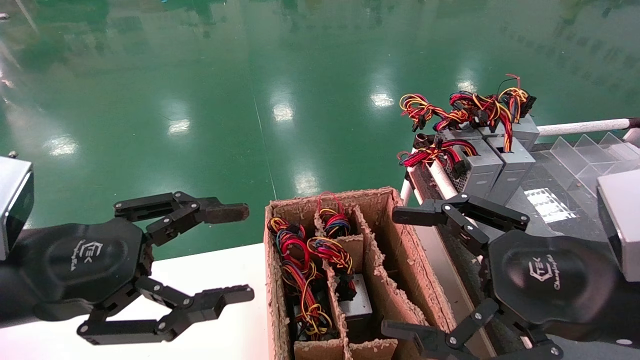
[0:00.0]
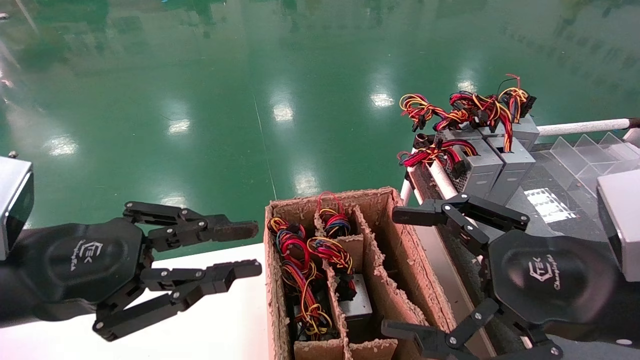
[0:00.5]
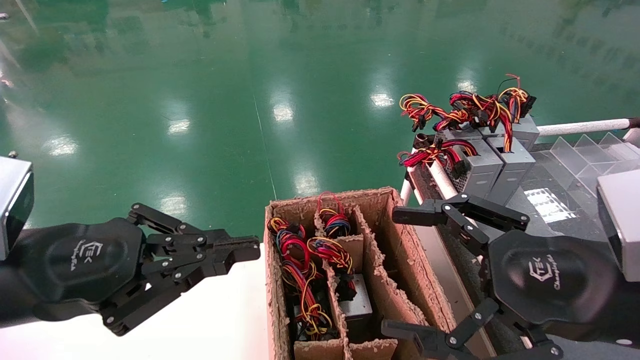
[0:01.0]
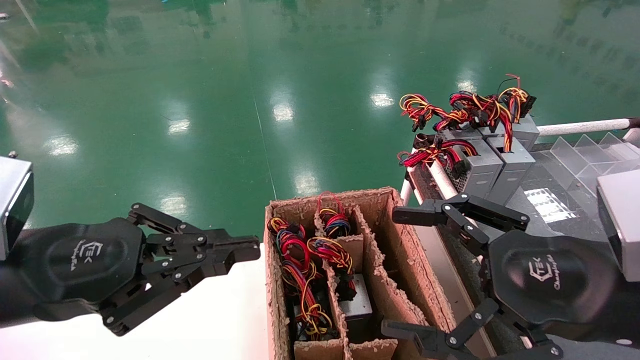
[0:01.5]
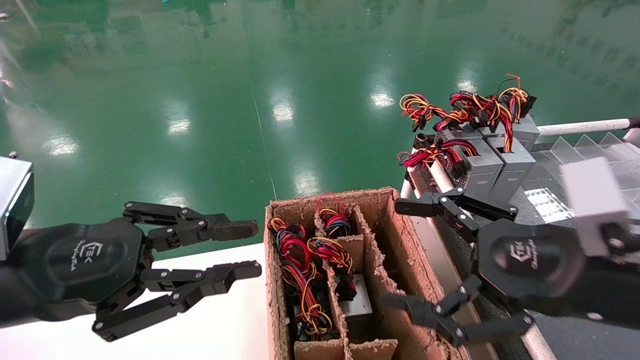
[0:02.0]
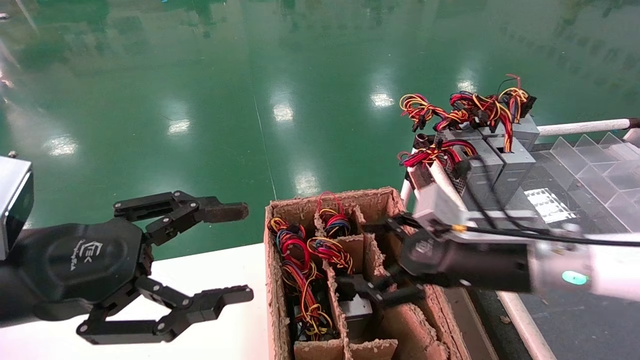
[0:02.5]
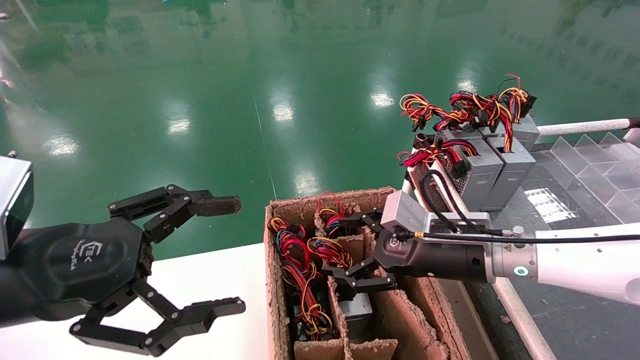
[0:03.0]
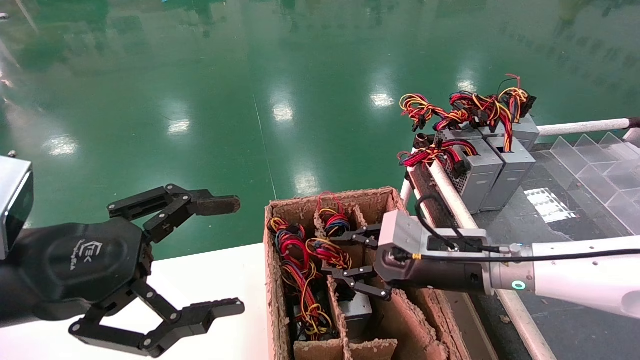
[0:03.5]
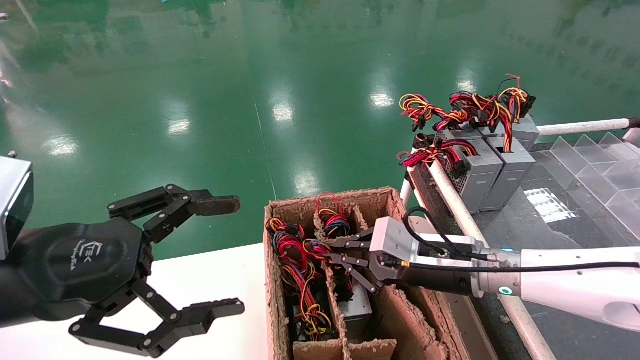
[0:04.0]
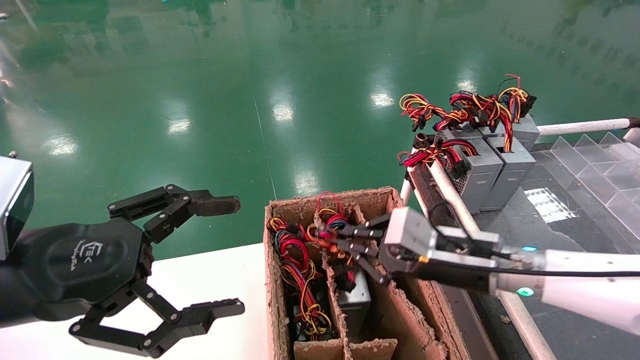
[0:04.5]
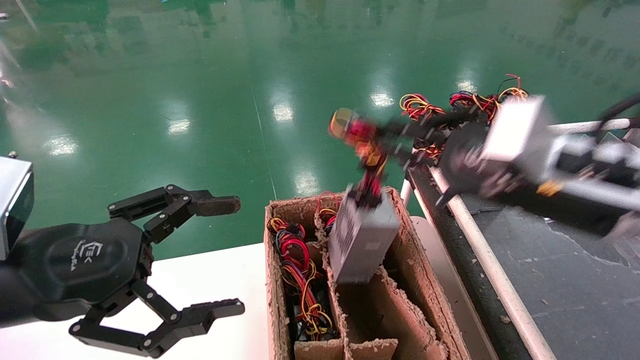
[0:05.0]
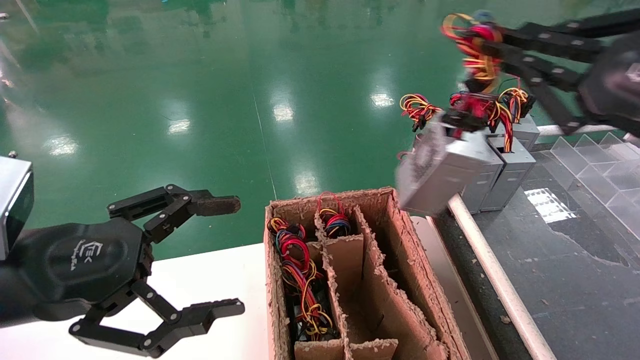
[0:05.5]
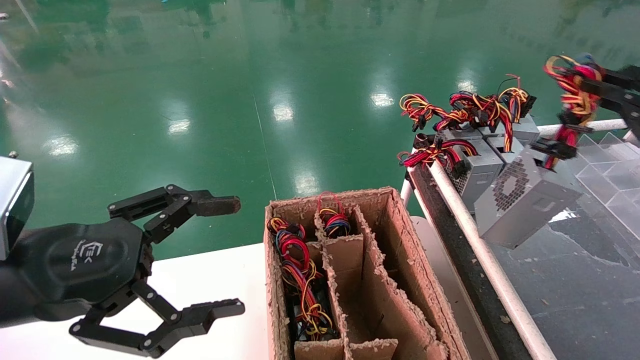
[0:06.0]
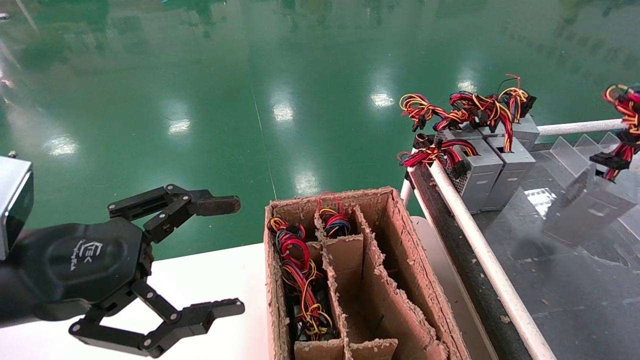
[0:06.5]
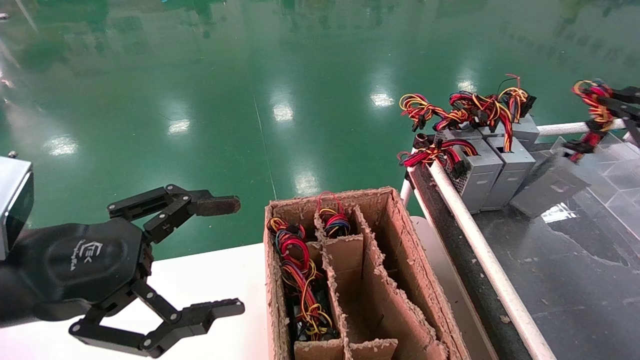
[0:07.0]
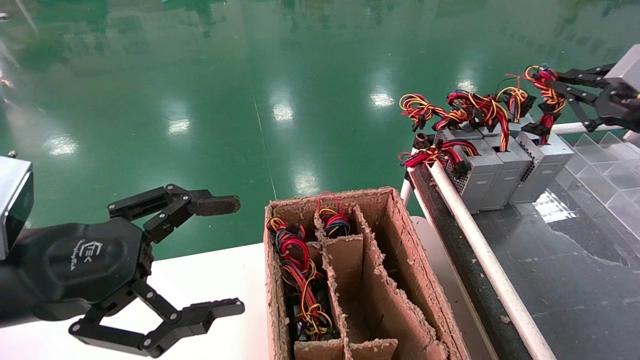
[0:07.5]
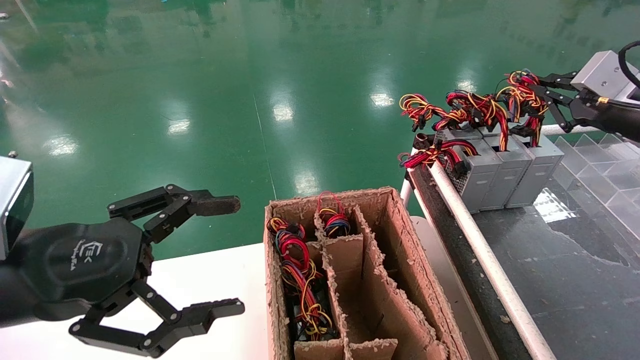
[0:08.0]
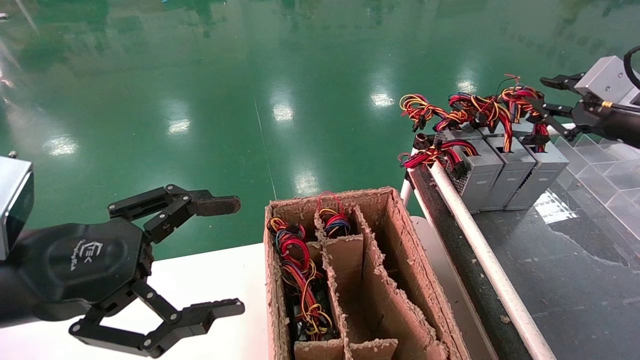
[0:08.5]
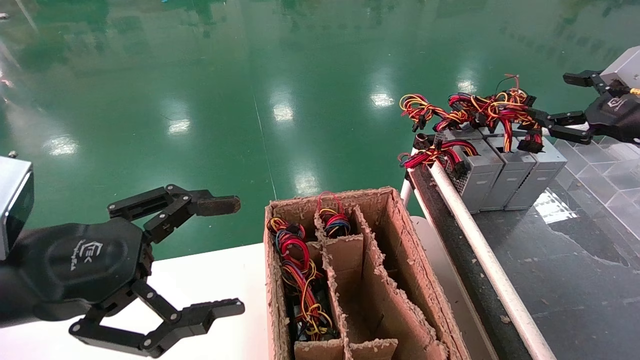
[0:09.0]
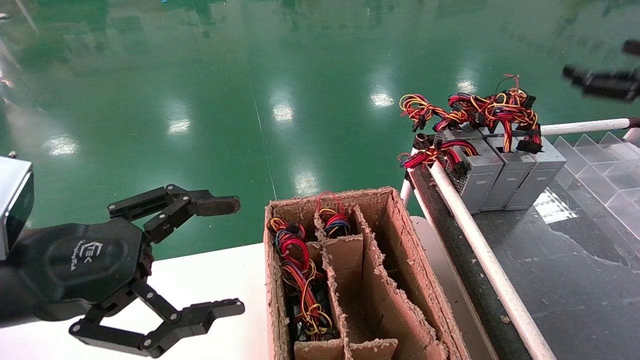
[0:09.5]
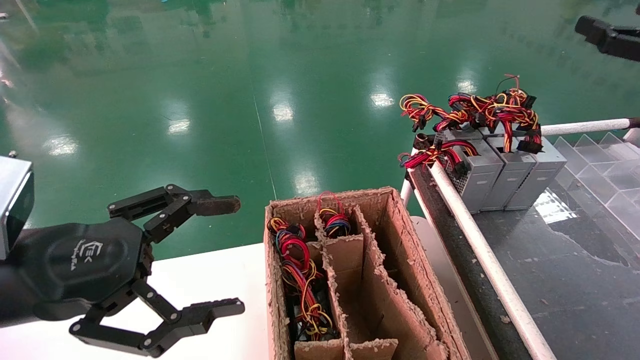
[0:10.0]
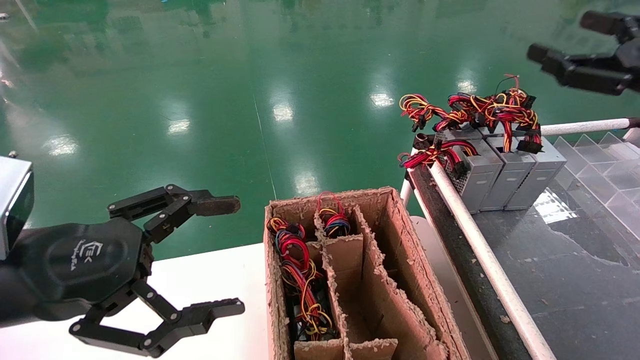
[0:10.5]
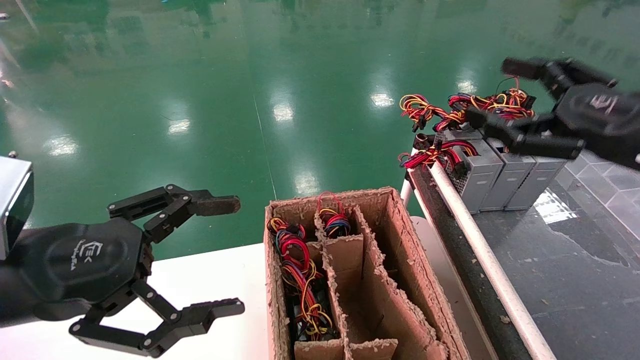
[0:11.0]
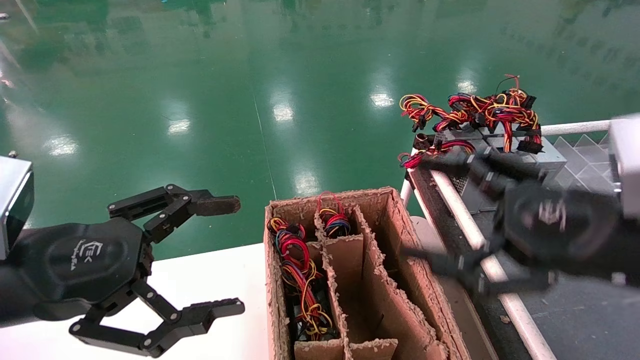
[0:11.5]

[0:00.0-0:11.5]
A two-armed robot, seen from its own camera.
Step, 0:00.5 to 0:03.5: Grab and lift the power supply from the large box.
Step, 0:04.0 to 0:08.5: Place the power supply on the operating table.
0:00.0 to 0:02.0: The left gripper closes.
0:02.0 to 0:04.0: The left gripper opens up; the right gripper shifts roughly 20 cm forward, downward and to the left, and closes.
0:04.0 to 0:06.0: The right gripper goes some 35 cm to the right, upward and backward.
0:06.0 to 0:07.5: The right gripper moves forward, approximately 15 cm.
0:07.5 to 0:09.5: The right gripper opens up.
0:09.5 to 0:11.5: The right gripper is displaced to the left, backward and downward by roughly 25 cm.
